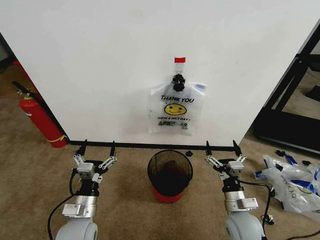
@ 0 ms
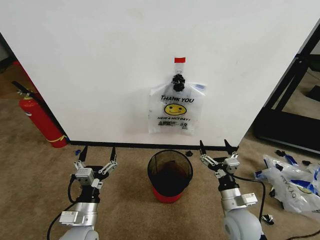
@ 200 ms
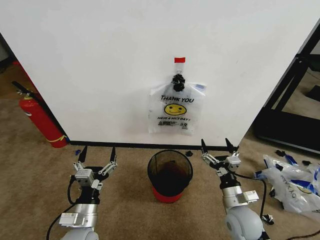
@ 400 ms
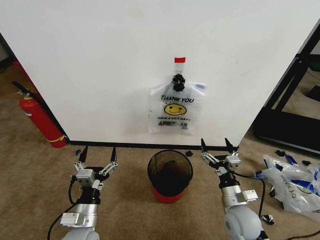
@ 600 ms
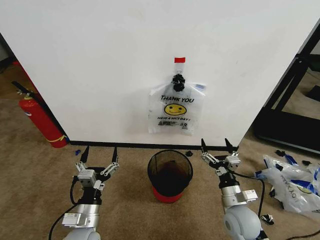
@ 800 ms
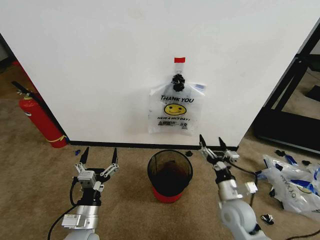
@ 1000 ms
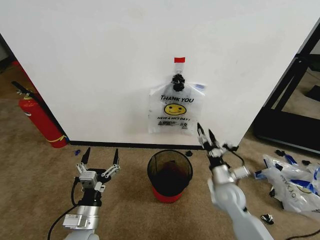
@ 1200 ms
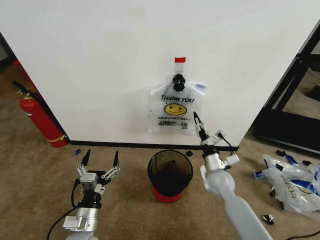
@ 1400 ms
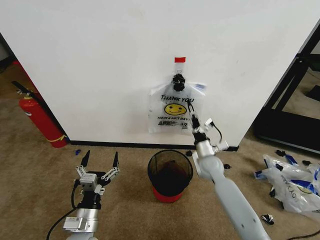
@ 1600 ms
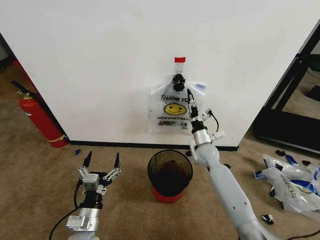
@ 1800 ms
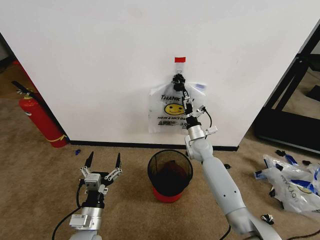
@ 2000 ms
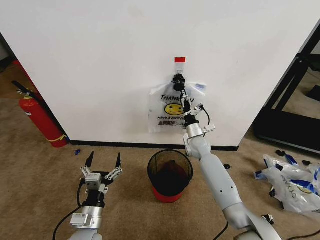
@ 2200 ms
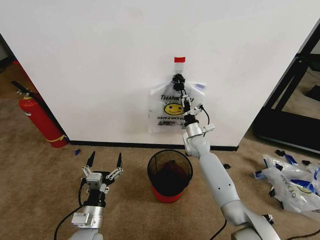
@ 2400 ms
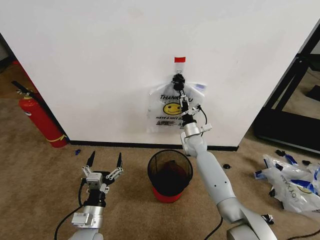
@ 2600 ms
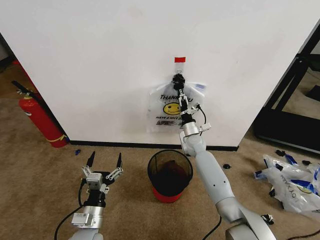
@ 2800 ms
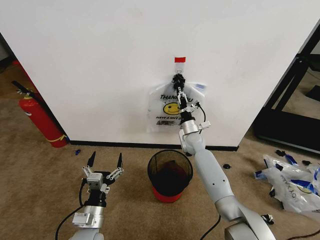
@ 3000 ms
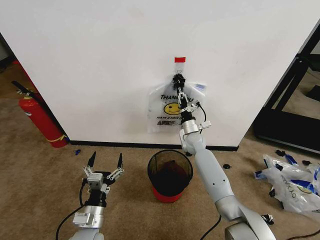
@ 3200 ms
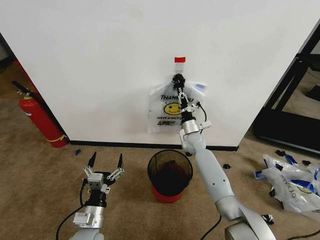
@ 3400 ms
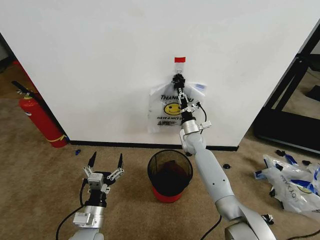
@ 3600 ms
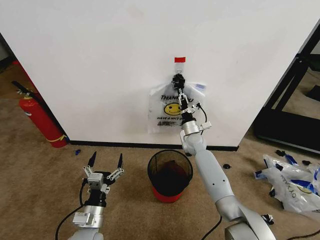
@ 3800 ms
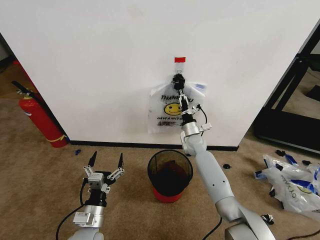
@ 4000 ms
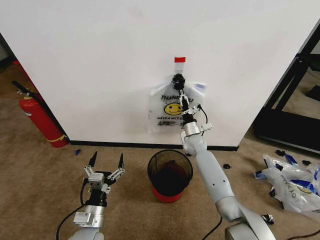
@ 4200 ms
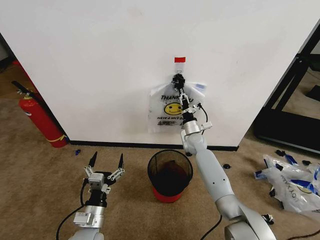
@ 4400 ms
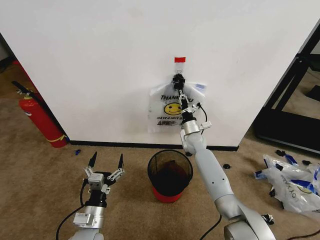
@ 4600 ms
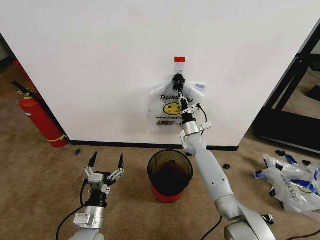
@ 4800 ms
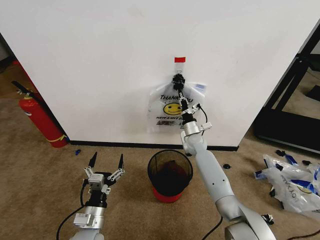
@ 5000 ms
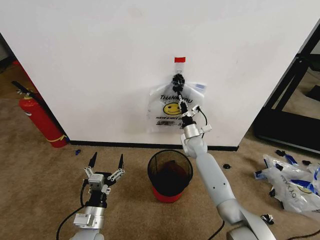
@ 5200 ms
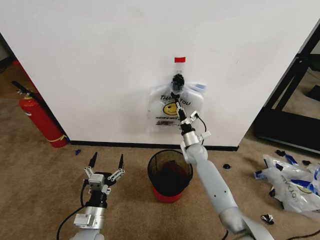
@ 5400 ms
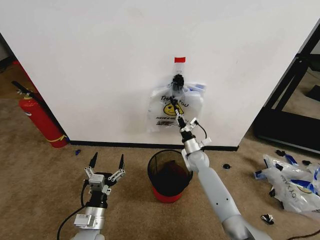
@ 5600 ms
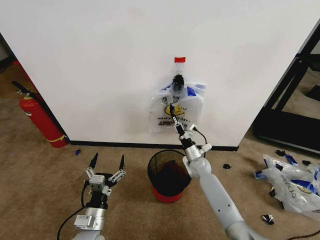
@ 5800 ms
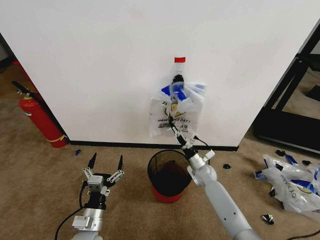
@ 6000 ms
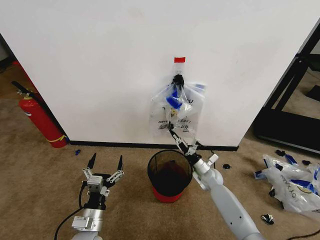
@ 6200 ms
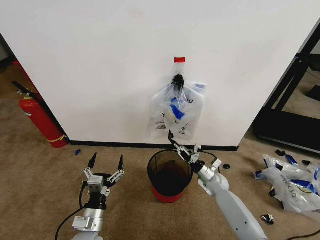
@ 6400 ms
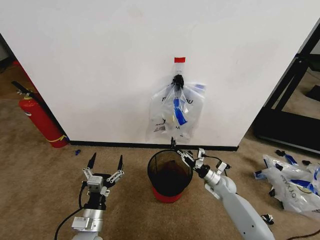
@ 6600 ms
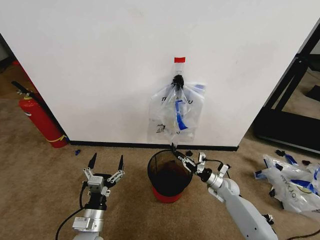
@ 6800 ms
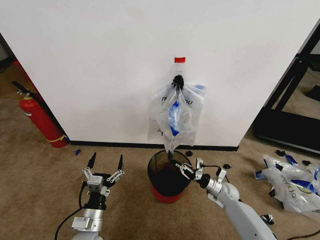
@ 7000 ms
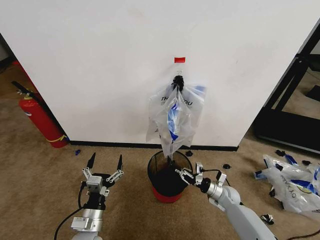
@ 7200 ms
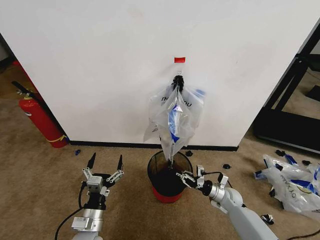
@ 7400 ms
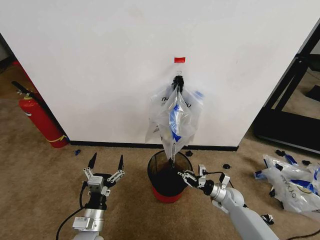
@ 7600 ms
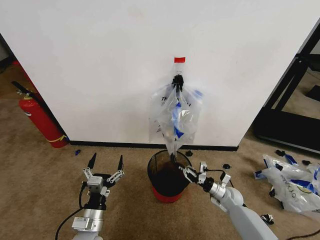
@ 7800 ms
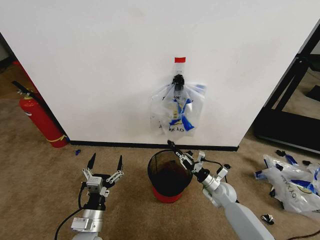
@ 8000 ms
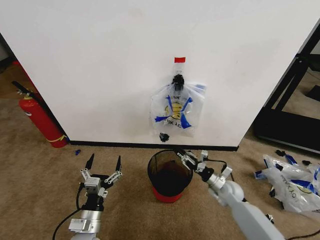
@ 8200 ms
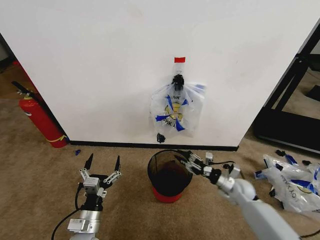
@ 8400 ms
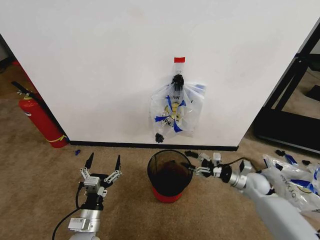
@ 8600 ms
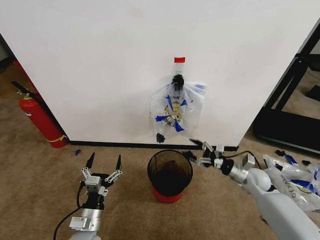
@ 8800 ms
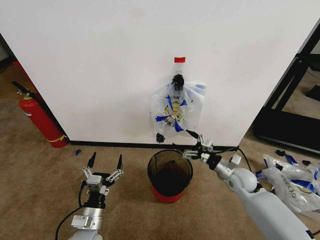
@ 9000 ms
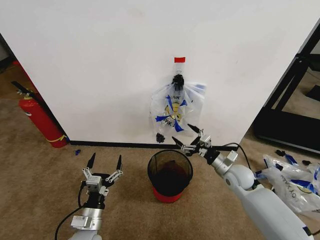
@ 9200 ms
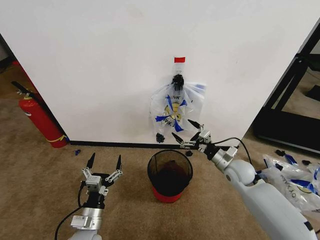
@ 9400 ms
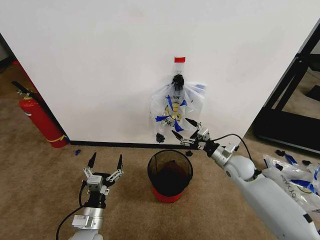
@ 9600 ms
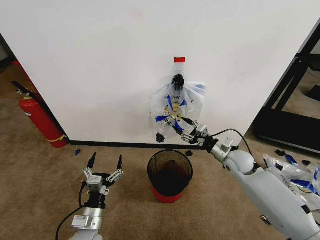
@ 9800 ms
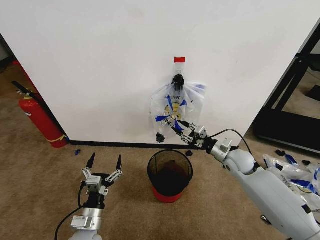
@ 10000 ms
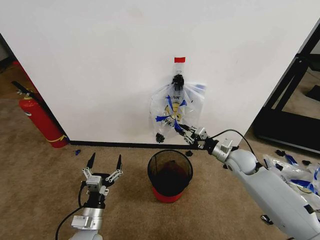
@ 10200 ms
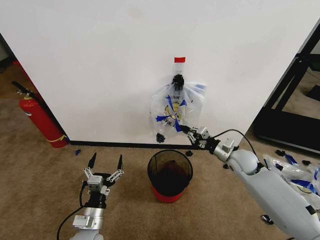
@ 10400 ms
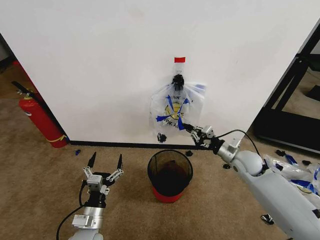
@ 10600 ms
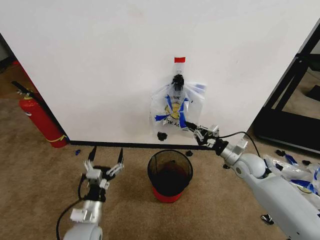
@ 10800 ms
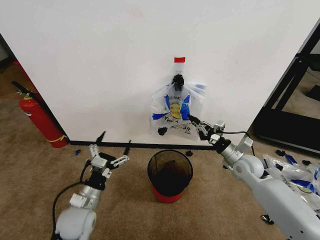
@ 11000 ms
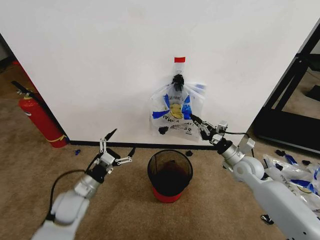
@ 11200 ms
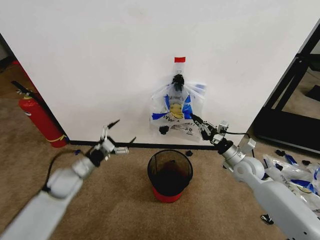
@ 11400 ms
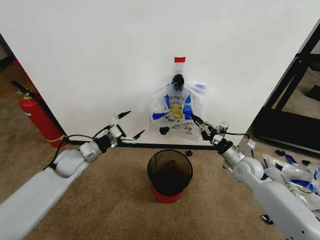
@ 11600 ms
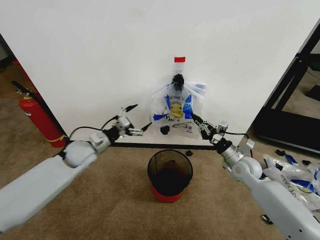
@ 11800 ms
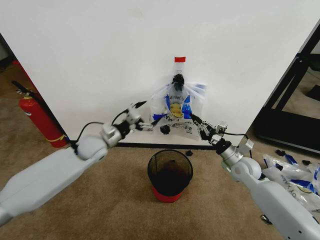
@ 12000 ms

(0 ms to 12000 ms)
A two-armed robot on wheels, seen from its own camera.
Task of the whole recording: Pick up the garbage bag from the wall and place it over the trash bin.
1600 ms - 3000 ms: The right gripper travels forward by roughly 10 cm, and closes up.
3000 ms - 4400 ms: The grippers stay close to where they were, moving slightly.
4400 ms - 6000 ms: The right gripper travels downward and backward by about 15 cm, and closes.
6000 ms - 7600 ms: The right gripper travels to the right, backward and downward by roughly 15 cm.
7600 ms - 9000 ms: The right gripper moves upward, roughly 15 cm, and opens.
9000 ms - 10400 ms: The right gripper travels upward by about 5 cm, and closes.
10400 ms - 12000 ms: The left gripper goes some 30 cm forward and upward.

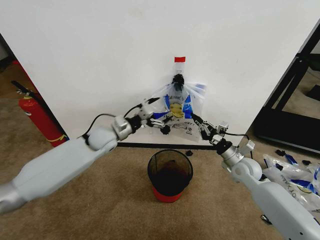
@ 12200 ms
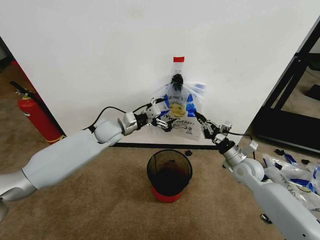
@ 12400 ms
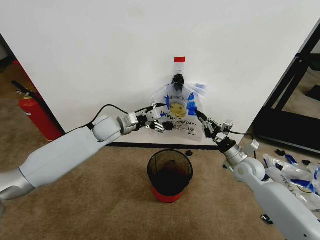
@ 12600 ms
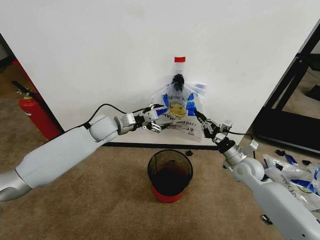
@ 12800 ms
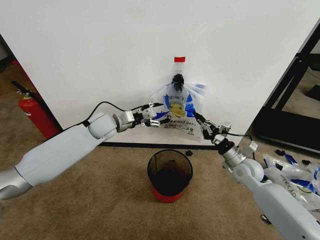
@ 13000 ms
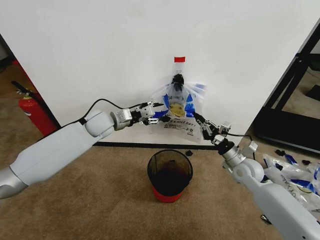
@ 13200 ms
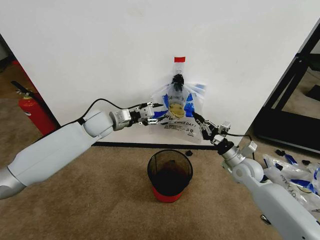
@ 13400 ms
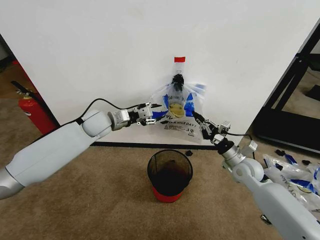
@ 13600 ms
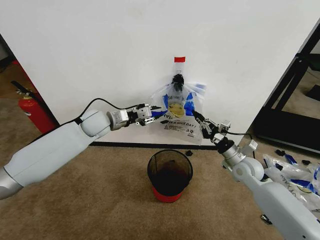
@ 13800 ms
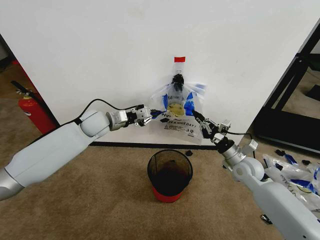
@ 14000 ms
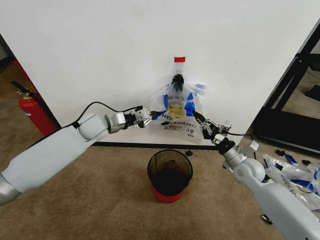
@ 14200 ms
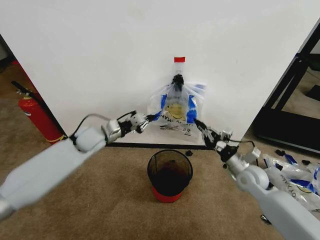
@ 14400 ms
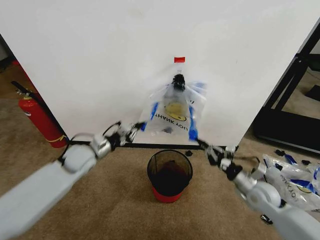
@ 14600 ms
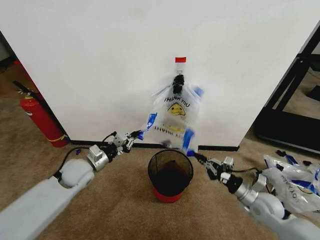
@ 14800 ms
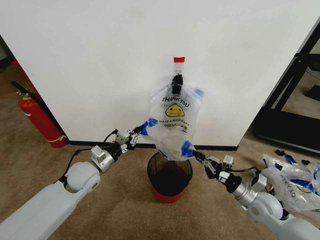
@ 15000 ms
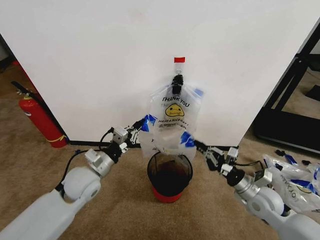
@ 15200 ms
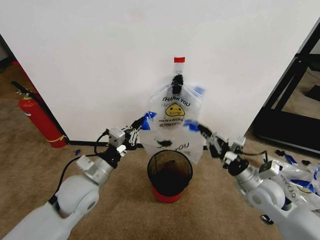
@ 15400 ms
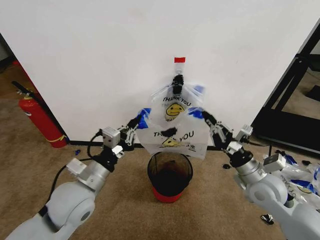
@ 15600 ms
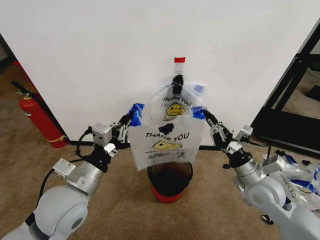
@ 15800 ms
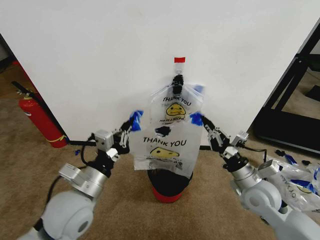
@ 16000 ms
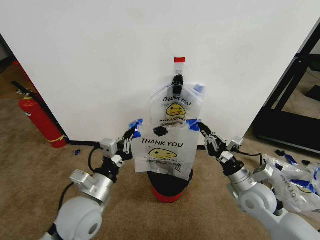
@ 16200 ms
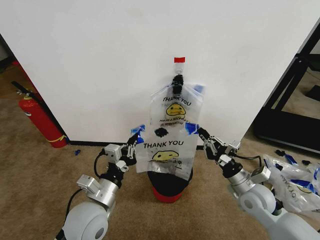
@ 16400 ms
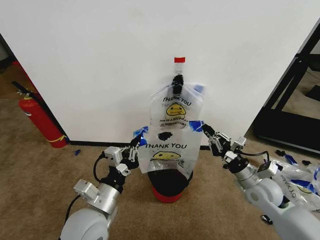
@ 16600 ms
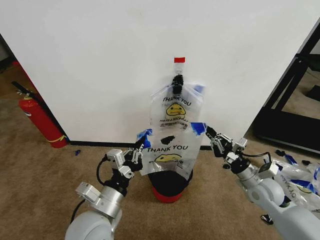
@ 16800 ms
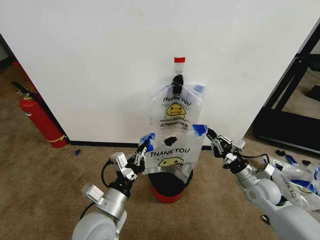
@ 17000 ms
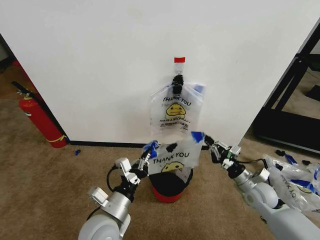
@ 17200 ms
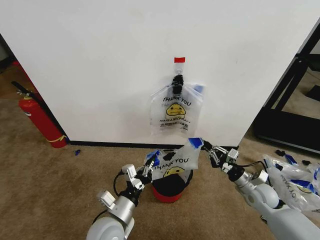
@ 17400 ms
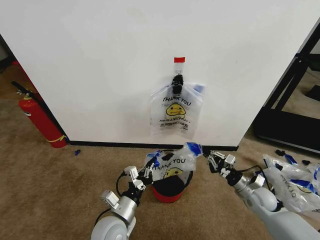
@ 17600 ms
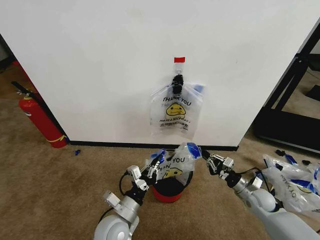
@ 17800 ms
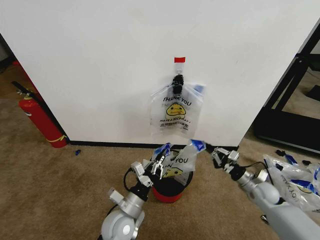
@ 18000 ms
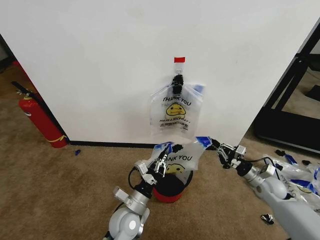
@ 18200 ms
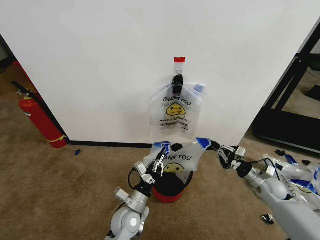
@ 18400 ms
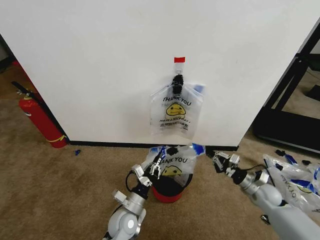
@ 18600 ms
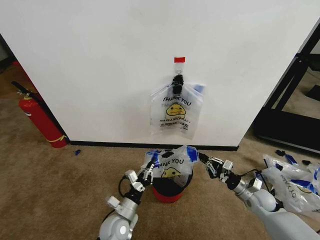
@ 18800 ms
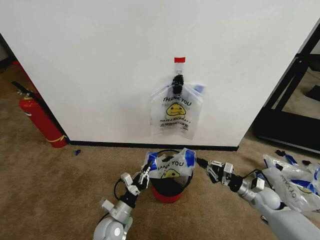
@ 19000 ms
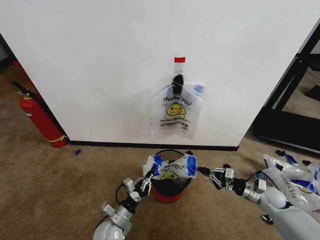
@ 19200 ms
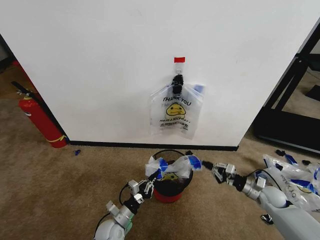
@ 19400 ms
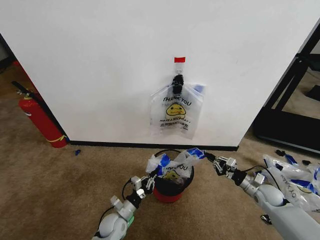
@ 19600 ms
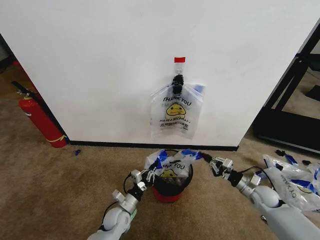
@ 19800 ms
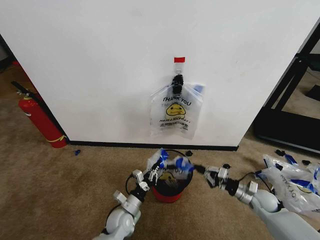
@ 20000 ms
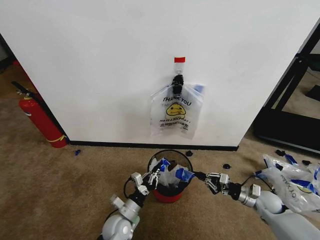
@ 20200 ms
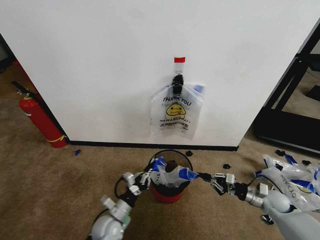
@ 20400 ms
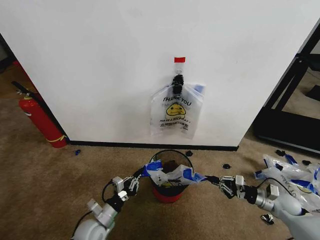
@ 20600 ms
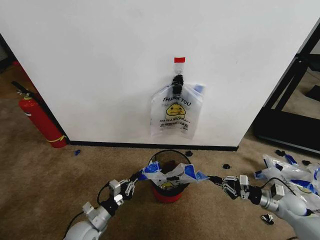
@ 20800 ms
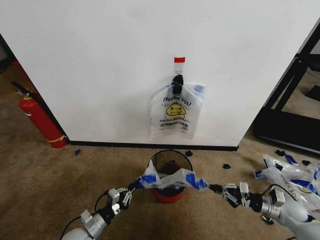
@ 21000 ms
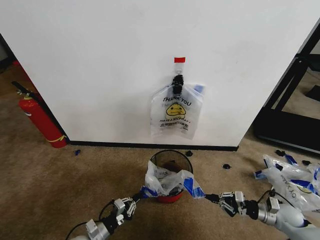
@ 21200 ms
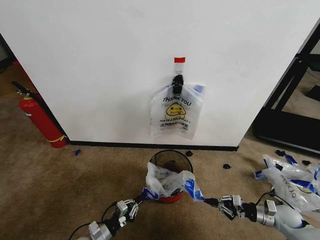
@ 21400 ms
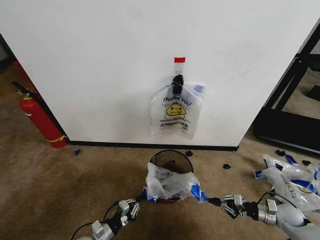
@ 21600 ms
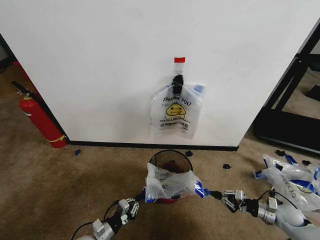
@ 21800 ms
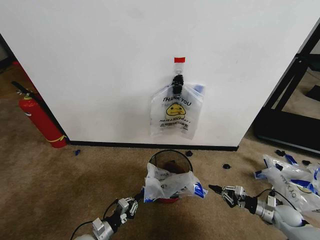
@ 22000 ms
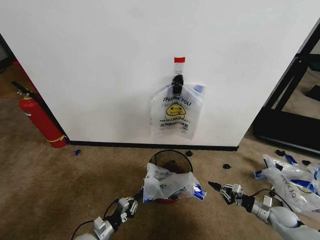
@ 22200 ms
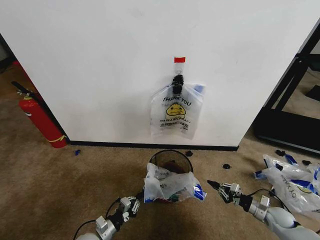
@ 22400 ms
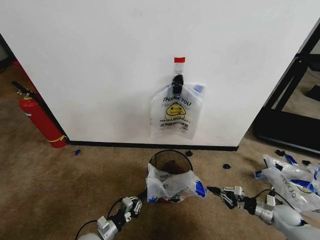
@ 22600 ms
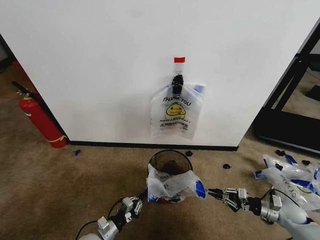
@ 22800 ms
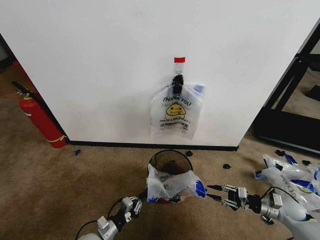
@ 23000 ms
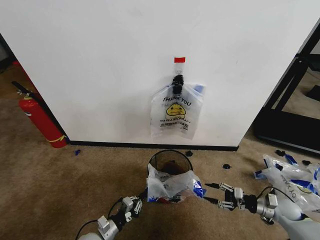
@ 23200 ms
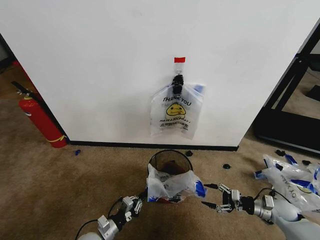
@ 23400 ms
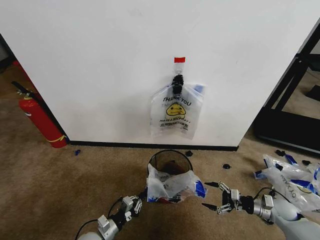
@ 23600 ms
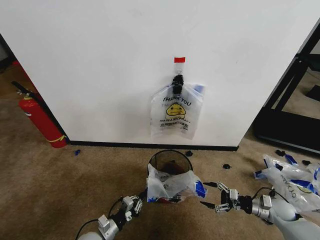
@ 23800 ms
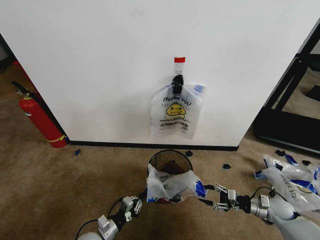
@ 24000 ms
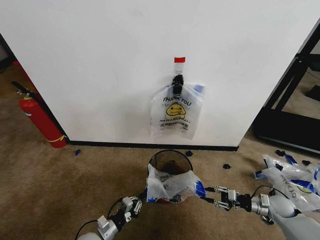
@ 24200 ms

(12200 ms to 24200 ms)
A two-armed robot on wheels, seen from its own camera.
Task of the whole recording: Pick up the garbage bag from the wall and place it over the trash bin.
12200 ms - 13800 ms: The left gripper ends up approximately 5 cm from where it was, and closes.
13800 ms - 15200 ms: The right gripper goes approximately 10 cm backward; the left gripper travels backward and downward by roughly 20 cm.
15200 ms - 16600 ms: The left gripper goes about 15 cm backward and to the right.
16600 ms - 18200 ms: The right gripper travels to the right and downward by some 15 cm. Meanwhile the left gripper heads downward and to the right, covering some 15 cm.
18200 ms - 19800 ms: The right gripper goes some 5 cm downward, while the left gripper is displaced downward and to the left by about 15 cm.
19800 ms - 21200 ms: The left gripper travels to the left and backward by about 15 cm, while the right gripper shifts about 10 cm backward and to the right.
22600 ms - 24200 ms: The right gripper opens up.
